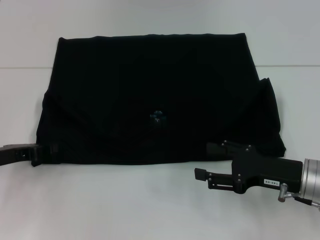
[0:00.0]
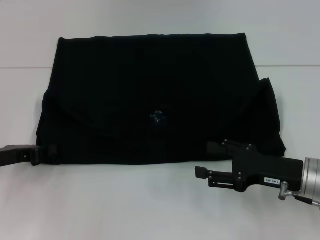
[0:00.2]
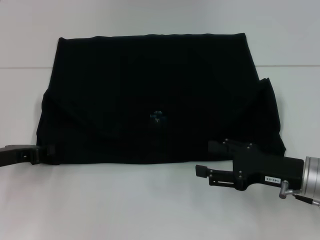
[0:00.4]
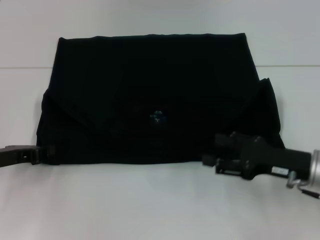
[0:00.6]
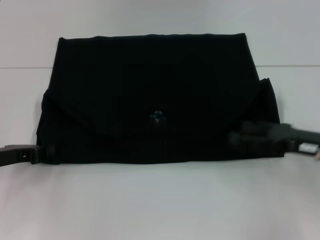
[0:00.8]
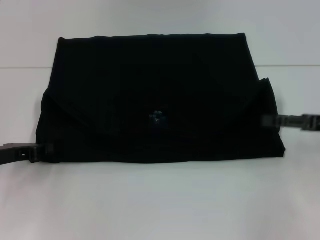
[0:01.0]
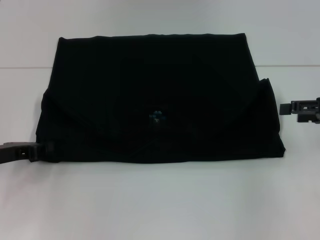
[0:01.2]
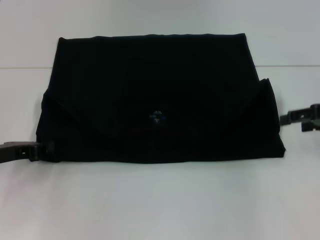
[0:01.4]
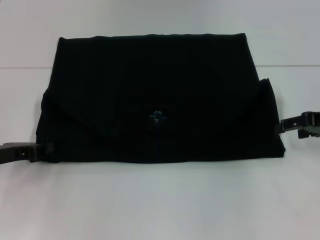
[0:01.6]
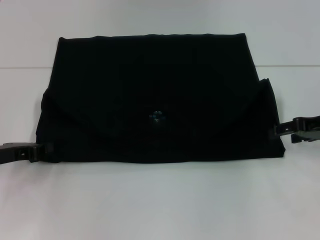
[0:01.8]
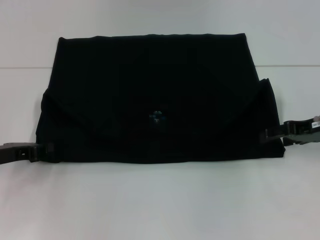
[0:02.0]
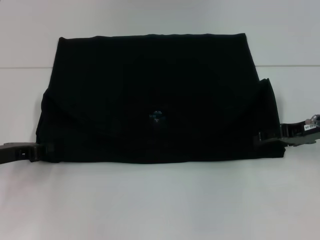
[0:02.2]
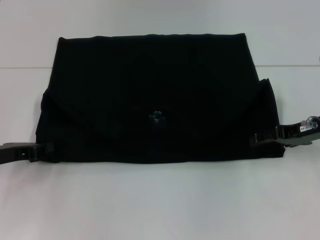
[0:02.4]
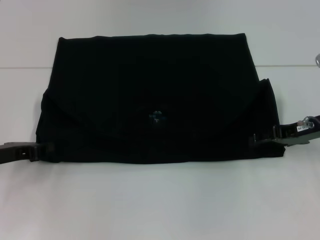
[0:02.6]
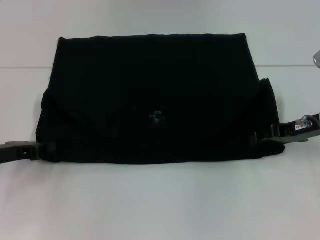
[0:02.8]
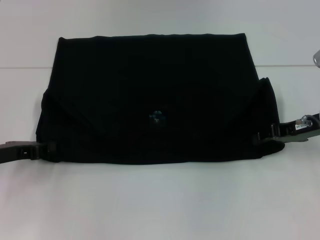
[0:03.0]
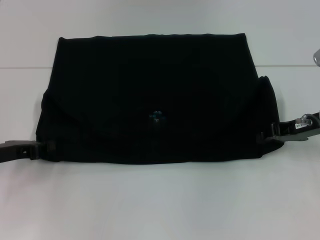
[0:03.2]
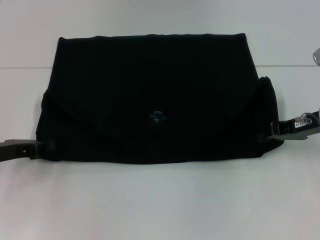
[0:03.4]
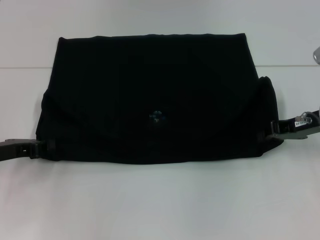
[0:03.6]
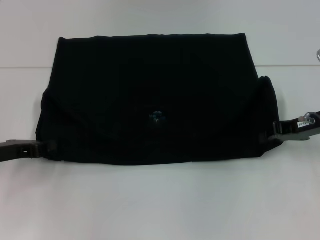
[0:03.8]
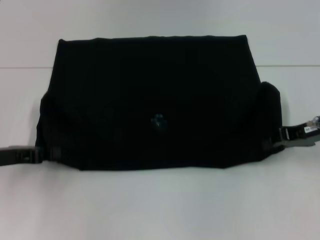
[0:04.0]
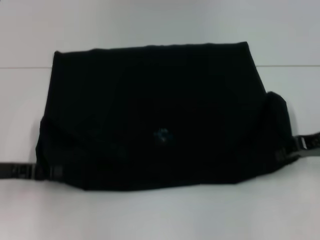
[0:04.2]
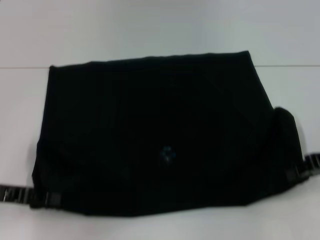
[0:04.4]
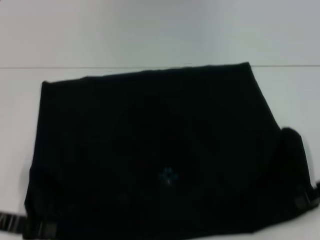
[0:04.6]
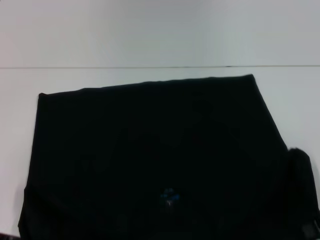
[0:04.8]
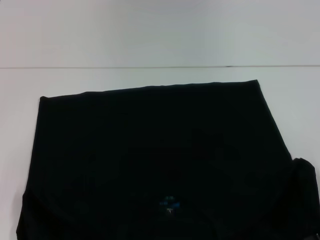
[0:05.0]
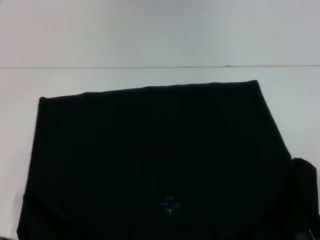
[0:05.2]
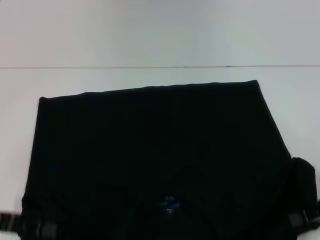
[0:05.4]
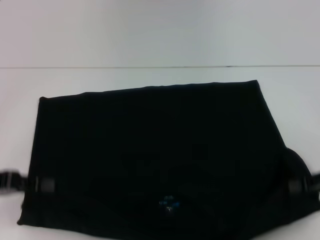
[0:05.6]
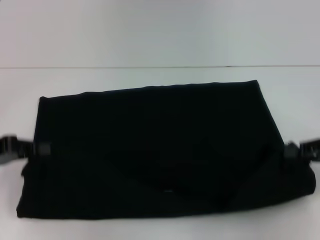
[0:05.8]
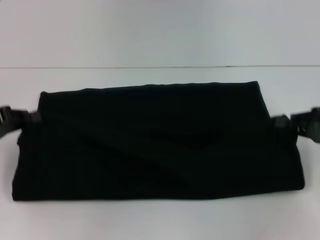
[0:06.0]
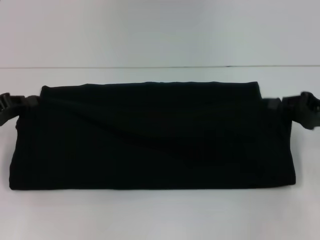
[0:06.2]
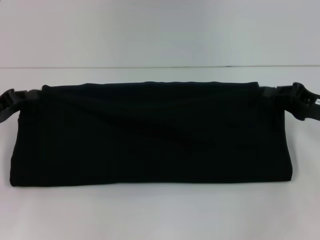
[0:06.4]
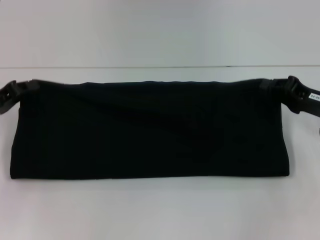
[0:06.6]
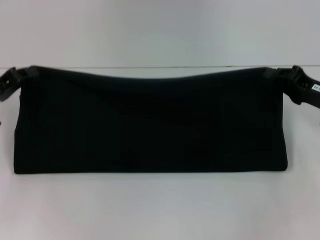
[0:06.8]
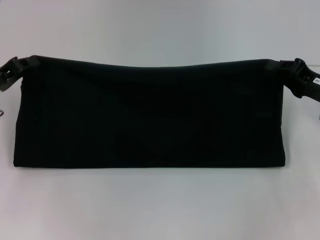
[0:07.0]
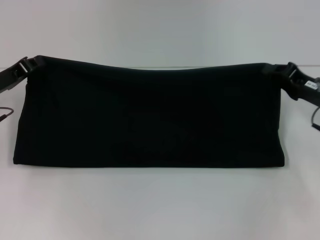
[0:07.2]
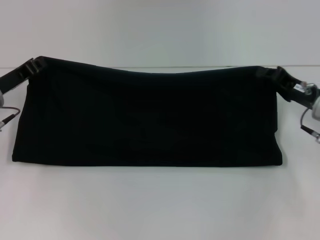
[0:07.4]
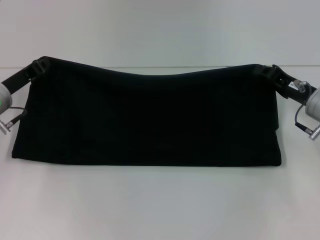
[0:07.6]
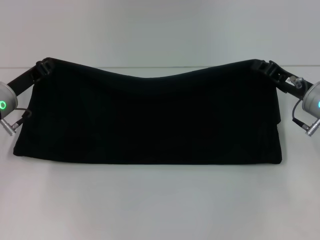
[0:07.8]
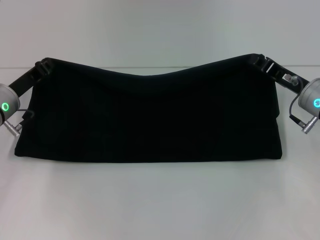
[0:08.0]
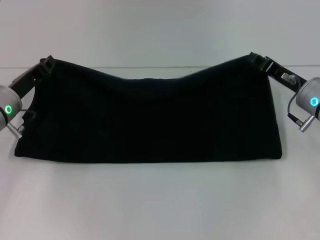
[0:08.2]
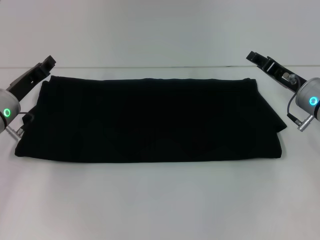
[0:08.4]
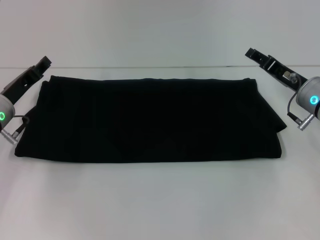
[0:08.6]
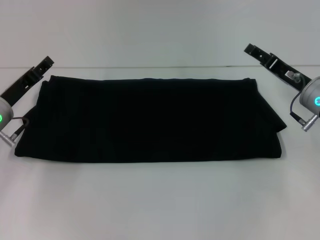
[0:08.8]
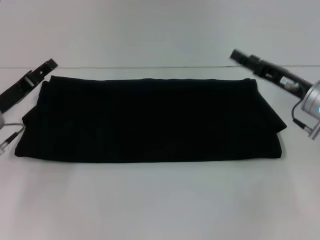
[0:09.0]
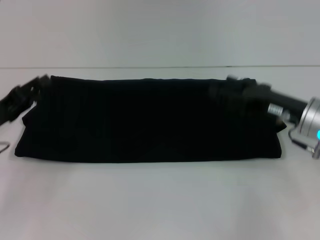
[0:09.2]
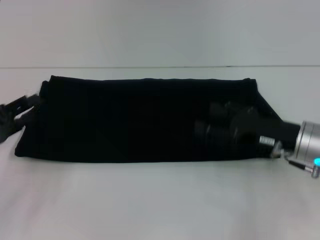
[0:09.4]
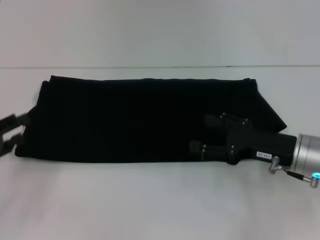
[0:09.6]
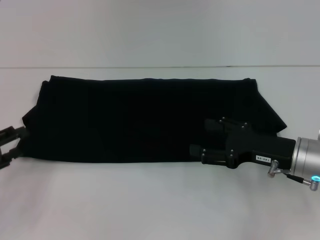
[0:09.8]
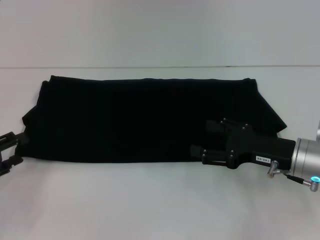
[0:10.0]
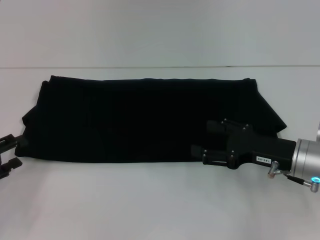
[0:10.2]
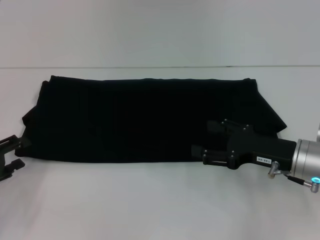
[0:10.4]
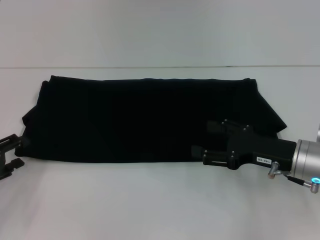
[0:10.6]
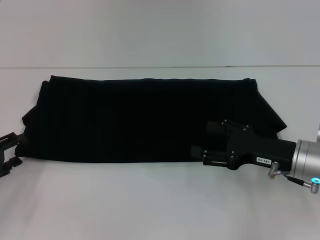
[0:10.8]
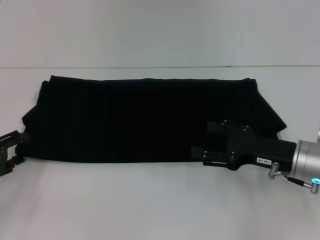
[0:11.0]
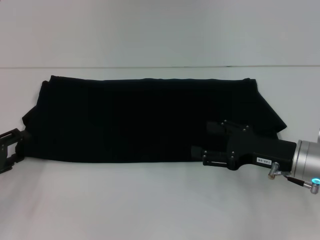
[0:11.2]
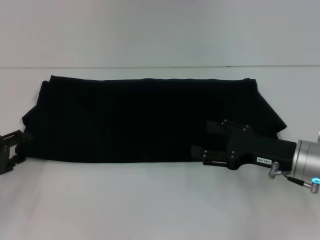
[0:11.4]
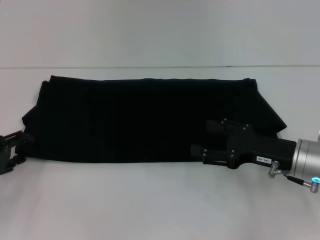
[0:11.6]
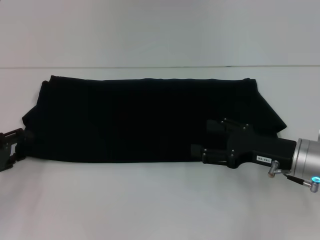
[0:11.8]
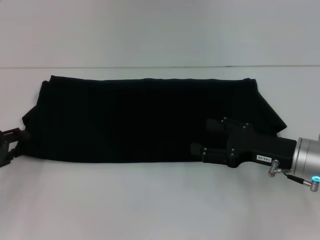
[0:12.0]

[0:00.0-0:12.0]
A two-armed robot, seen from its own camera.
Step, 0:00.0 to 0:05.2: Pull the clothes with your left hand.
Step, 0:00.0 to 0:05.2: Pull the clothes with your right hand.
Step, 0:05.4 to 0:08.2: Fold the clothes with your right hand.
0:00.0 to 0:01.6: The left gripper closes. The right gripper goes approximately 15 cm upward, forward and to the right.
0:01.6 to 0:03.0: The right gripper changes place by about 5 cm, and closes its fingers.
0:03.0 to 0:04.4: The right gripper shifts by approximately 5 cm, and closes its fingers; the left gripper changes place by approximately 5 cm.
0:04.4 to 0:06.0: The left gripper ends up about 5 cm from where it was.
0:06.0 to 0:07.6: The left gripper is displaced forward and to the right by some 10 cm. The right gripper is displaced to the left and forward by some 10 cm.
0:07.6 to 0:09.0: The right gripper opens up. The left gripper opens its fingers.
0:09.0 to 0:10.4: The left gripper goes approximately 10 cm backward and to the left, while the right gripper heads backward, covering about 5 cm.
0:10.4 to 0:12.0: The grippers stay close to where they were, moving slightly.

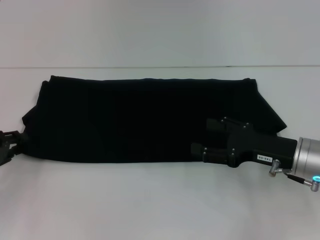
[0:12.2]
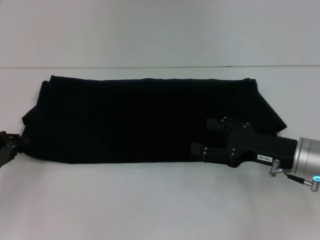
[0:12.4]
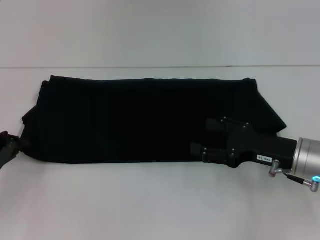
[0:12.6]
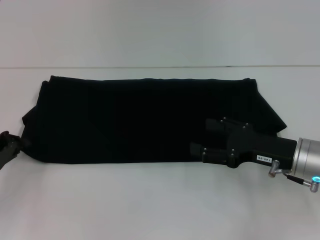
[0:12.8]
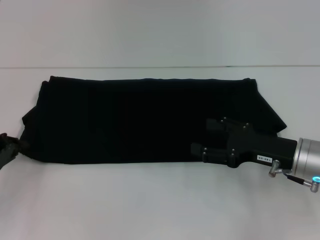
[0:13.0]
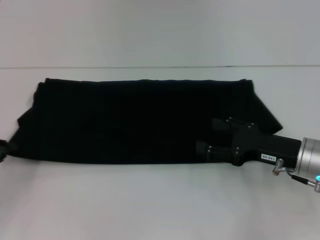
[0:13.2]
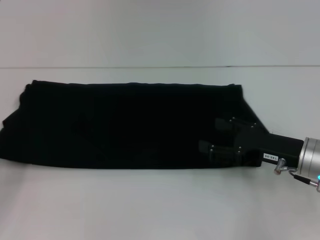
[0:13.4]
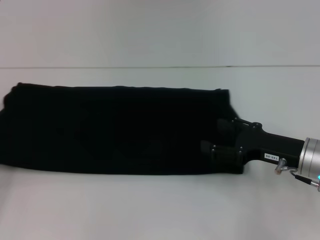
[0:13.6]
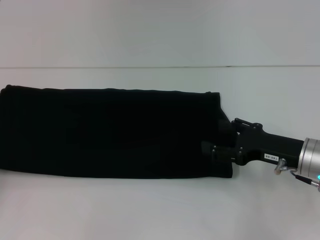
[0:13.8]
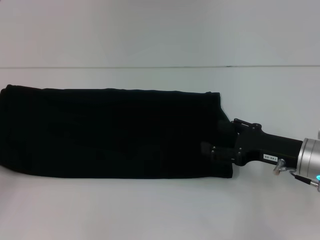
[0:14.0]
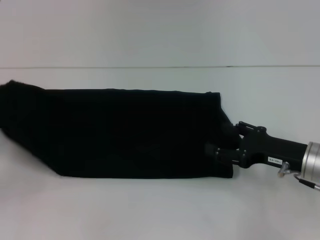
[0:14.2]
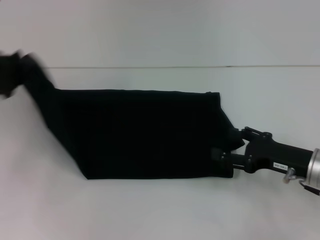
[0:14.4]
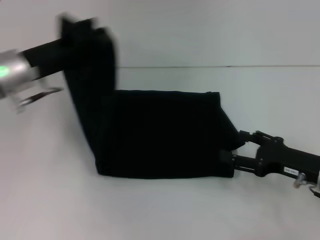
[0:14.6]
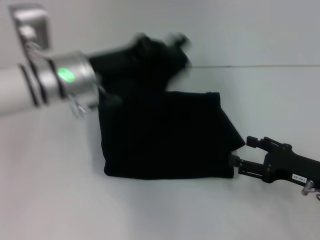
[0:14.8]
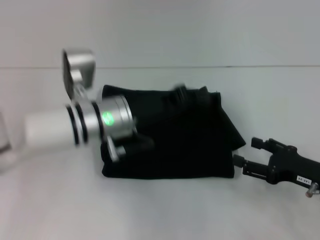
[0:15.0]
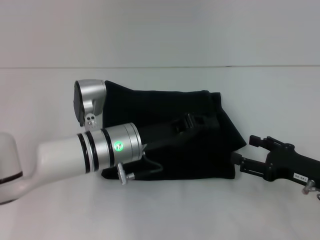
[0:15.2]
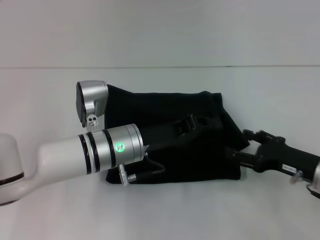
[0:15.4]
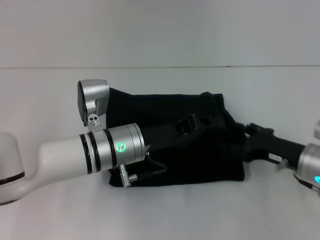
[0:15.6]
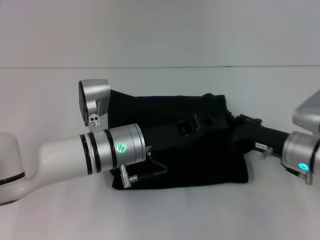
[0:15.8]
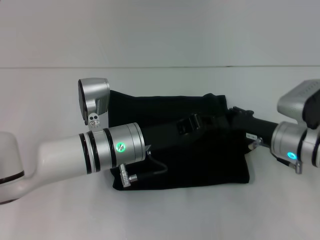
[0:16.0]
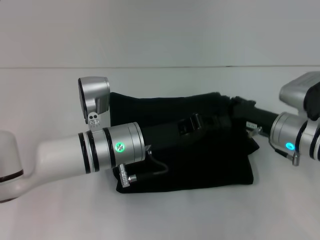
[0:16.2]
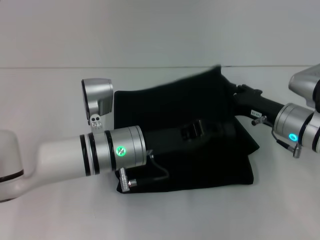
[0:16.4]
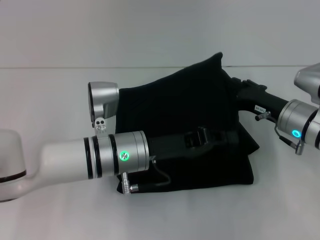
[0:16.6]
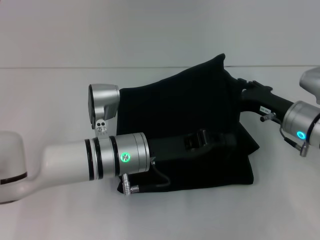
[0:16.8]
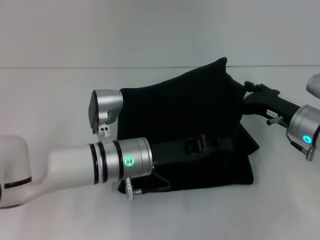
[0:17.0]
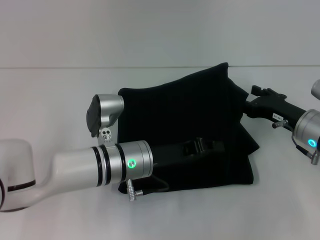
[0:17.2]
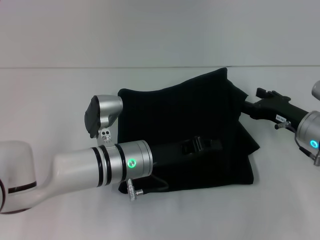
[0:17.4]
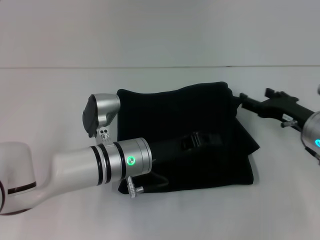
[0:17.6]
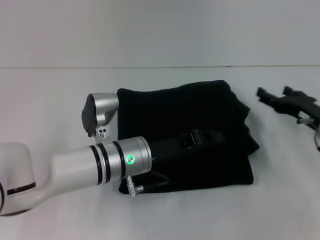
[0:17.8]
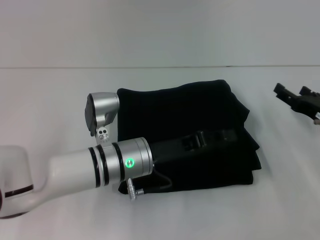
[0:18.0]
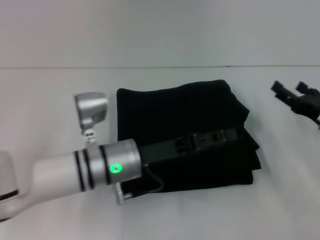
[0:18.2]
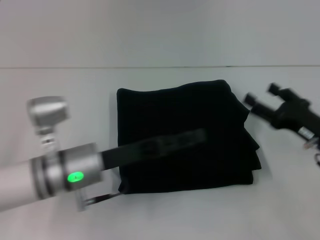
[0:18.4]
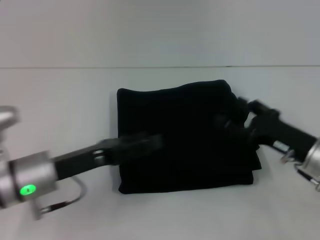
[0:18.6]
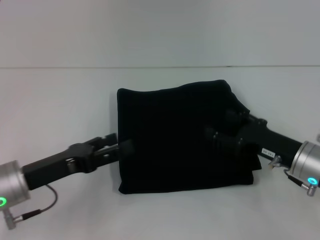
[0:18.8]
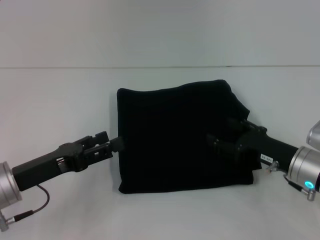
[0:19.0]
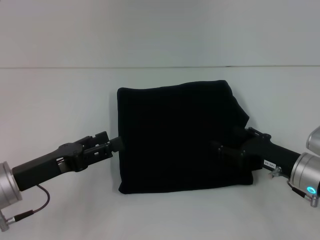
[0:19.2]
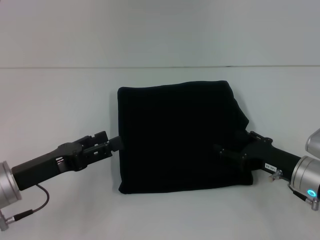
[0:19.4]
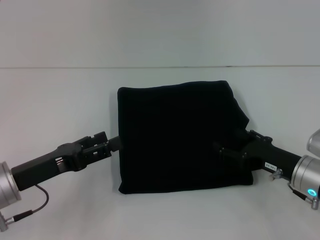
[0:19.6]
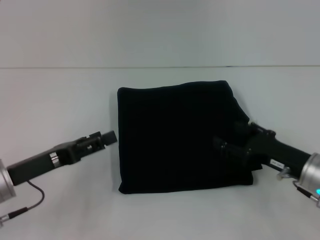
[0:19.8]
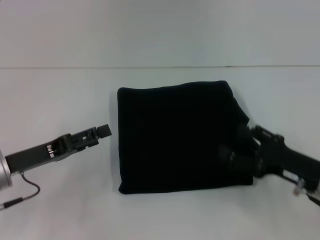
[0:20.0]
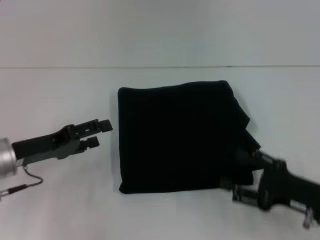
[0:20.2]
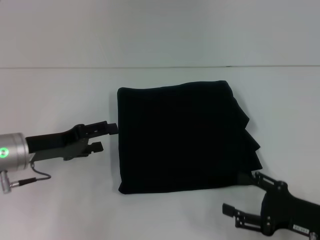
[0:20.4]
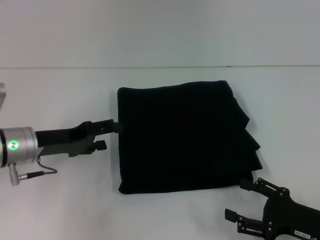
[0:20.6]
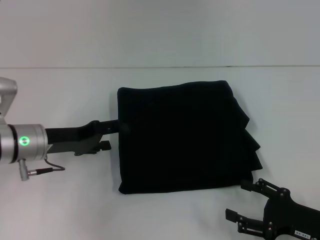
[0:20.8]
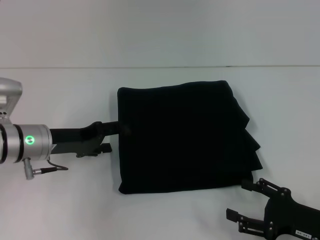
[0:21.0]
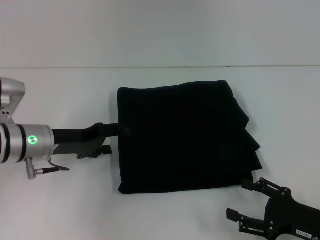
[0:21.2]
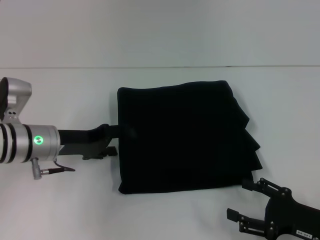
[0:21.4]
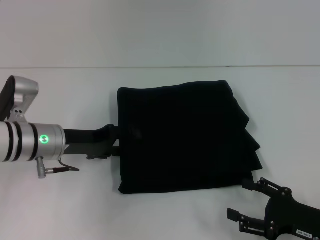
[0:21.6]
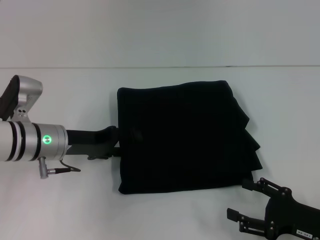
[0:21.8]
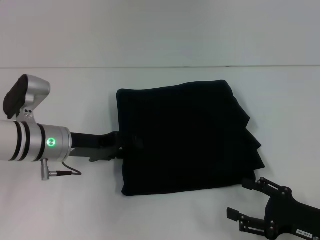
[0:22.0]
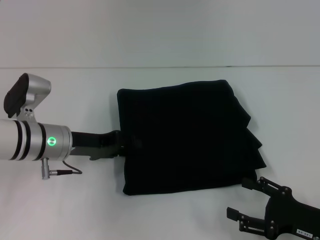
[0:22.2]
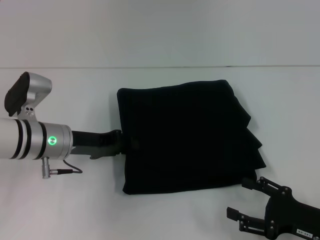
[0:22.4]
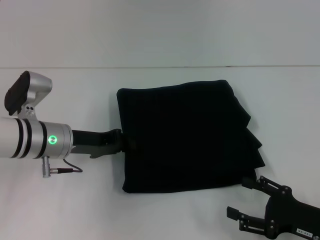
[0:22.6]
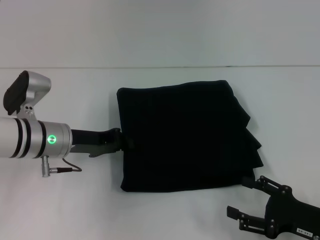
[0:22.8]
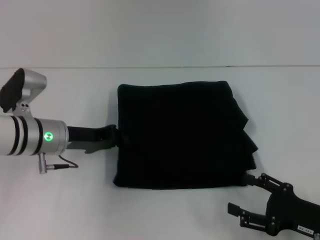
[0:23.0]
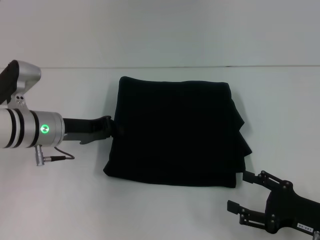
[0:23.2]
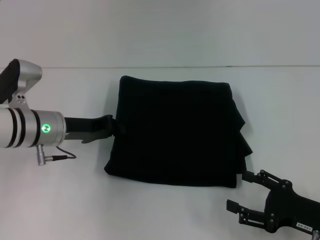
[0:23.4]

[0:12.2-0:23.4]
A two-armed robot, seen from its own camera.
Step, 0:12.2 to 0:18.0: Fold the clothes with your left hand.
0:12.2 to 0:13.8: The left gripper is displaced to the left by roughly 5 cm, and closes up.
0:13.8 to 0:15.4: The left gripper travels to the right by some 35 cm.
0:15.4 to 0:17.0: The right gripper moves forward, approximately 5 cm.
0:17.0 to 0:18.6: The right gripper is displaced backward by roughly 5 cm; the left gripper heads to the left, covering some 10 cm, and opens its fingers.
0:18.6 to 0:20.2: The left gripper shifts approximately 5 cm to the left; the right gripper moves backward, roughly 5 cm.
0:20.2 to 0:21.8: The left gripper shifts about 10 cm to the right and forward.
0:21.8 to 0:23.4: The left gripper closes its fingers.
